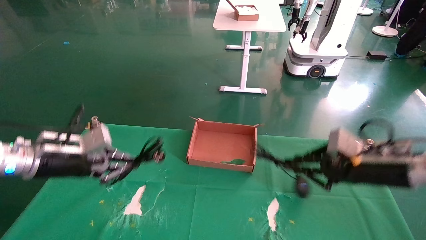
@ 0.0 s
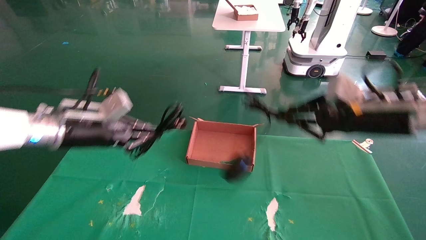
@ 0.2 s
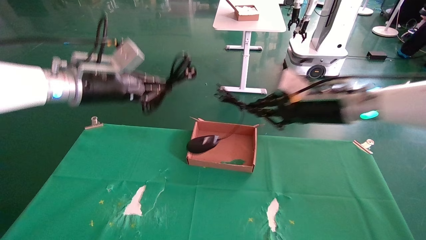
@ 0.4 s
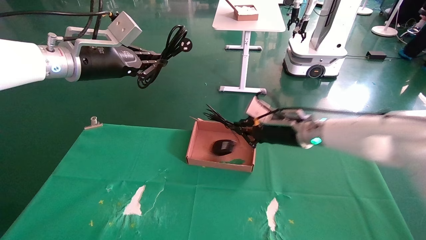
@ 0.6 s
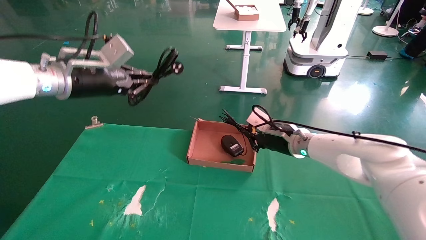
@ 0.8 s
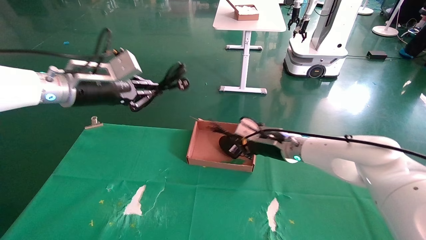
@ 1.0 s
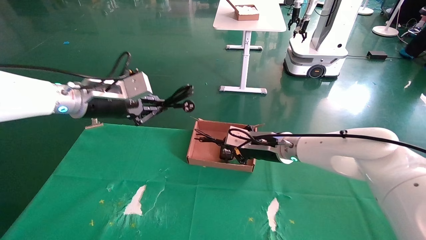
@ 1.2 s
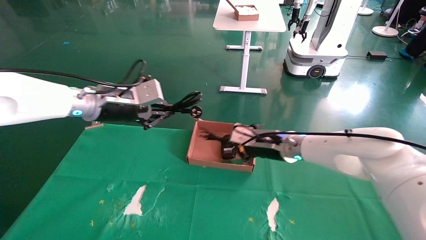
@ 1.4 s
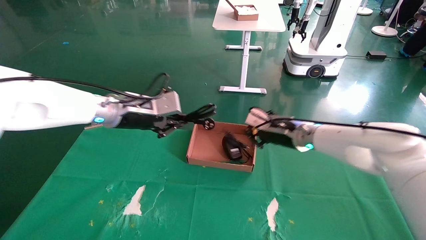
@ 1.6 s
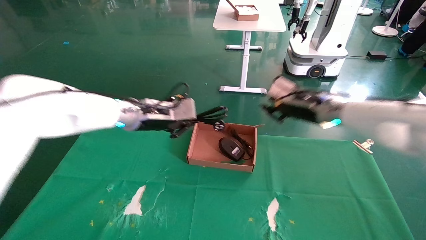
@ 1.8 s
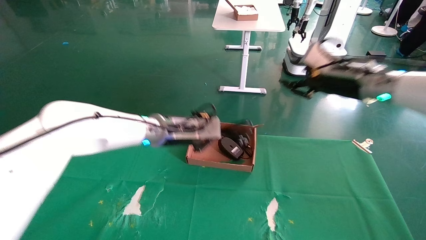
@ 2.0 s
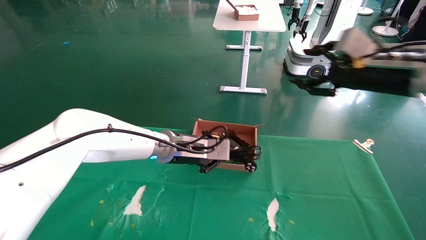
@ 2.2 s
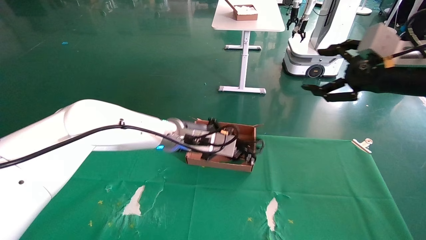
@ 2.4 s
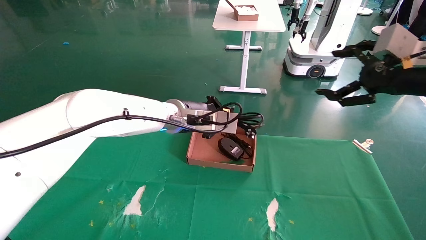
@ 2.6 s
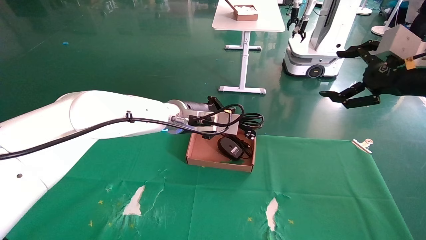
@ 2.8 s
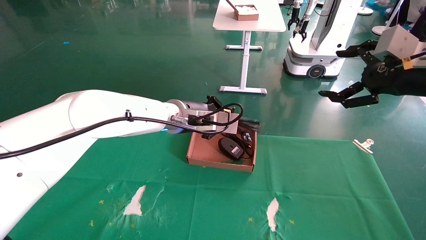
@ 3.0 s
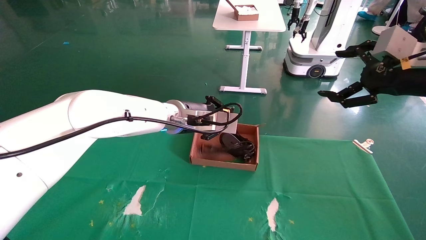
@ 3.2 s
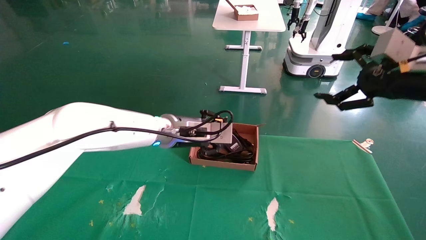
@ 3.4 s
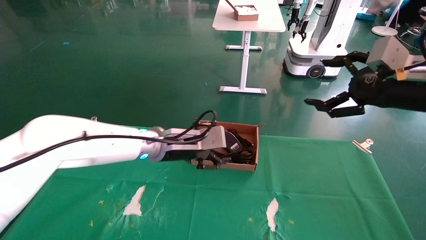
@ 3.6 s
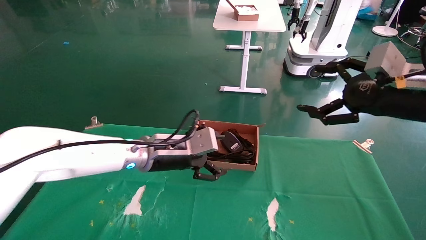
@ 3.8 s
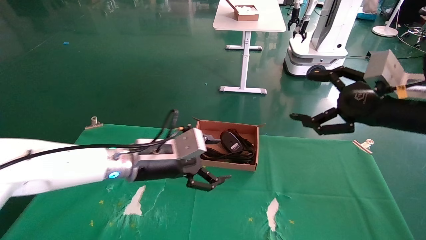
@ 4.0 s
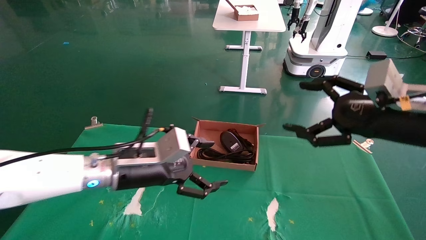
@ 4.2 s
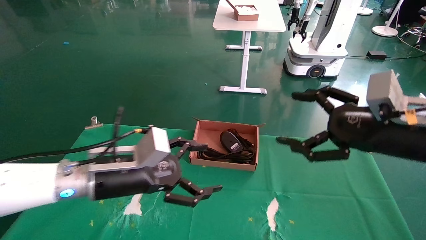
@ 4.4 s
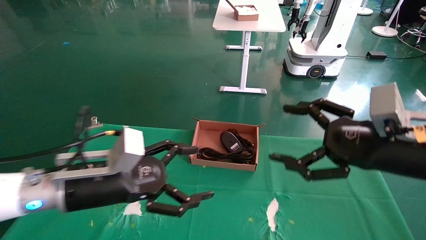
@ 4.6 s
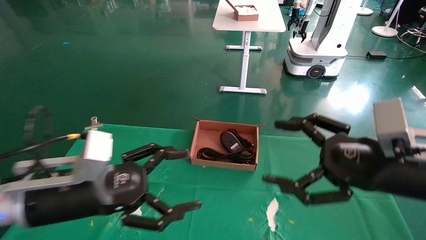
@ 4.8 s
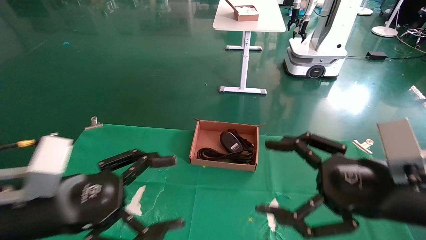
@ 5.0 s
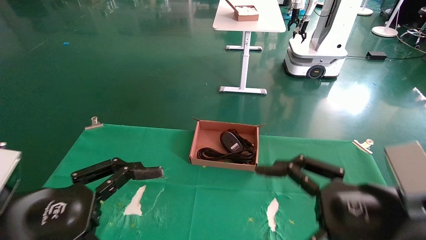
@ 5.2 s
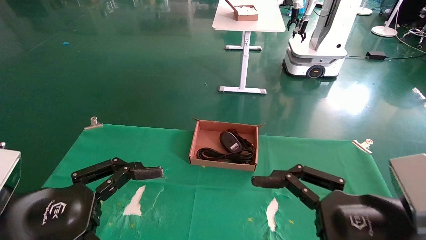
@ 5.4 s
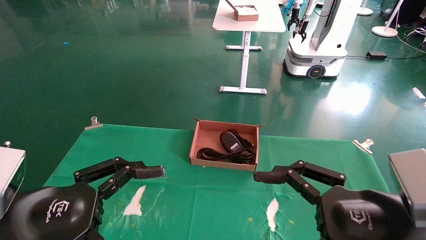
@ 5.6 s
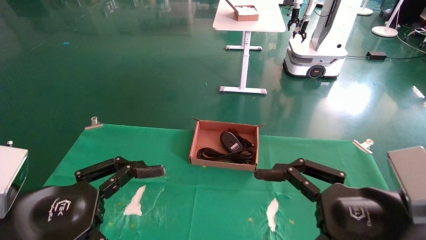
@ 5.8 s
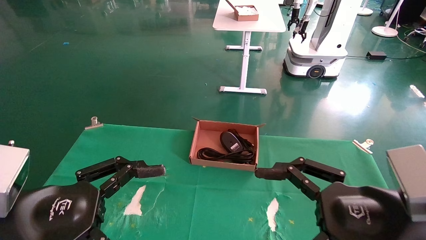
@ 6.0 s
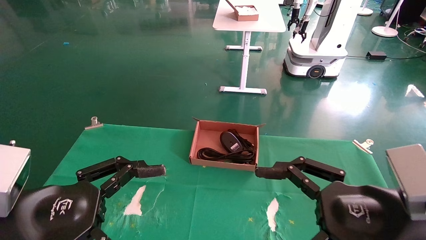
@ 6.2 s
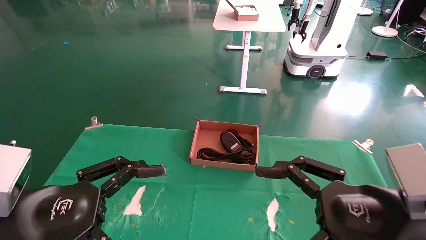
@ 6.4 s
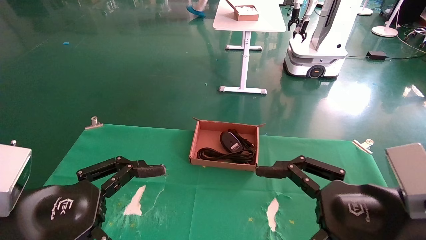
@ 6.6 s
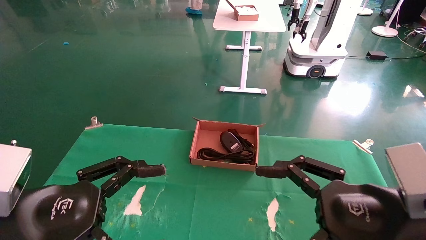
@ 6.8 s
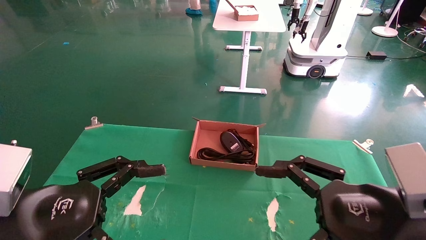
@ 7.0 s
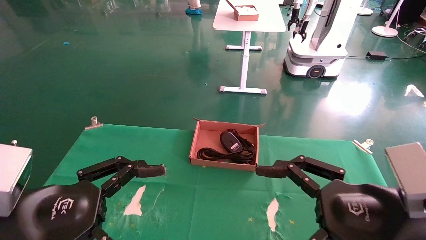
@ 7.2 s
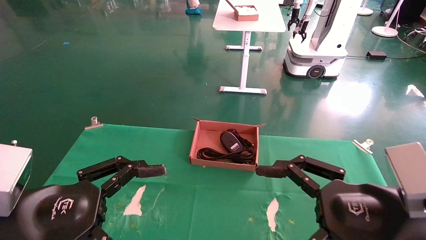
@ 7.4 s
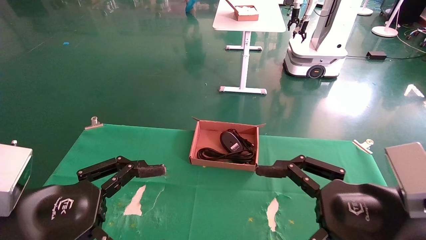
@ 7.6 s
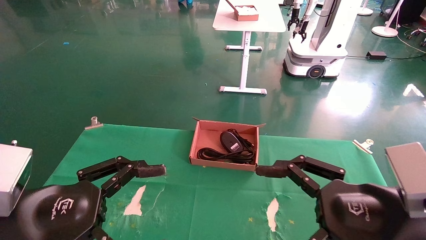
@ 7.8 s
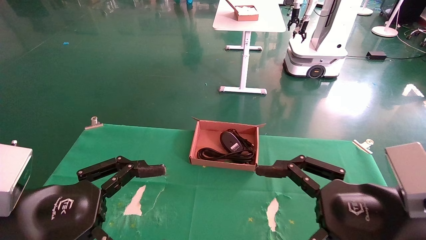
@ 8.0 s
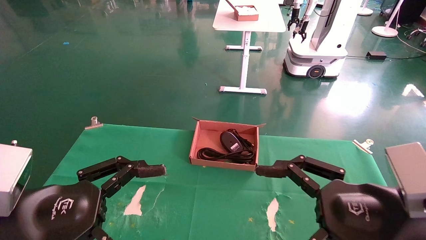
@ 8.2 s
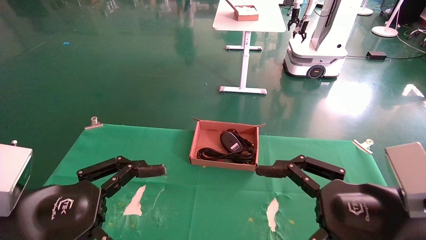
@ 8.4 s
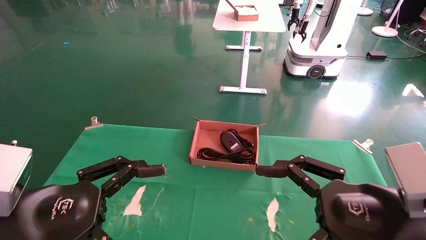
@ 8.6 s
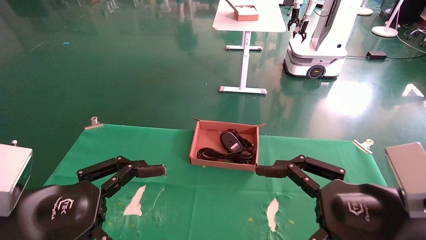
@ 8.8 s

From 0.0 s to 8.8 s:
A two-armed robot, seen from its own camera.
Step, from 0.0 s to 3.4 s: Place the mouse and power cord into the box.
From 0.0 s to 1.4 s: The left gripper is displaced to the right and upward by some 15 cm; the right gripper heads to the left and forward, covering about 20 cm.
From 1.4 s to 3.0 s: The left gripper moves to the right, roughly 15 cm. Meanwhile the right gripper shifts about 30 cm to the right, upward and backward, and opens up.
From 3.0 s to 4.4 s: The left gripper goes about 20 cm backward, to the left and downward, and opens. The right gripper goes roughly 10 cm downward and to the left.
From 4.4 s to 5.8 s: The left gripper moves backward and to the left, roughly 15 cm. Meanwhile the right gripper heads backward, downward and to the left, covering about 15 cm.
From 5.8 s to 8.8 s: The two grippers keep their place.
